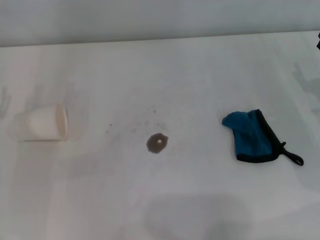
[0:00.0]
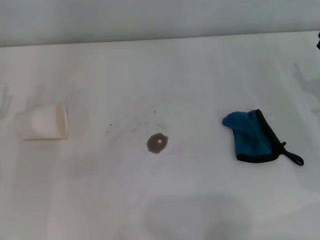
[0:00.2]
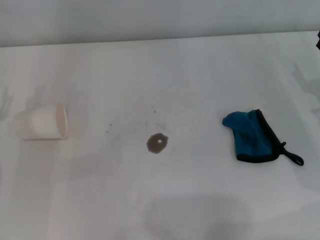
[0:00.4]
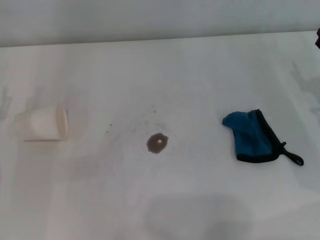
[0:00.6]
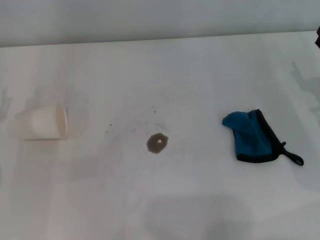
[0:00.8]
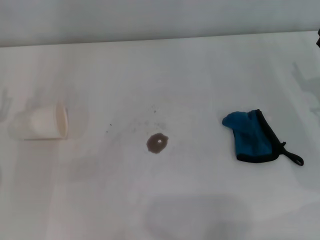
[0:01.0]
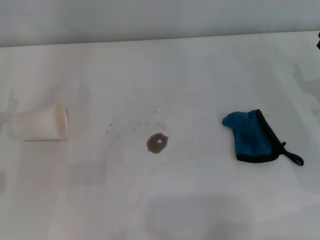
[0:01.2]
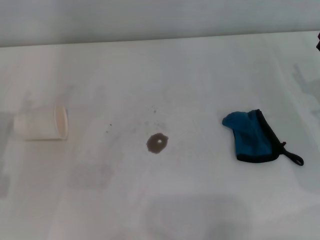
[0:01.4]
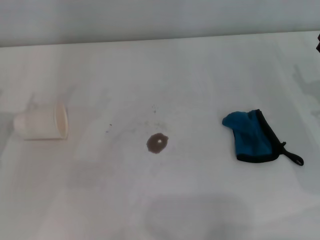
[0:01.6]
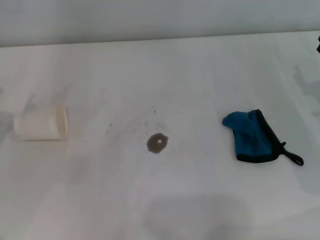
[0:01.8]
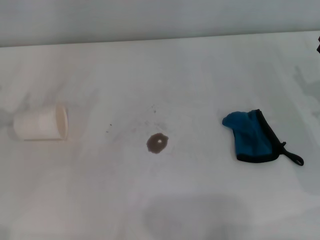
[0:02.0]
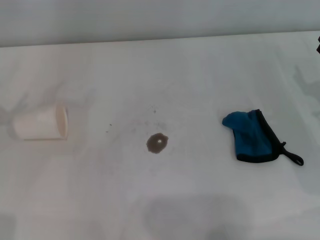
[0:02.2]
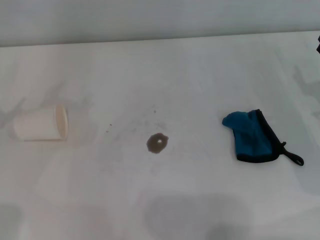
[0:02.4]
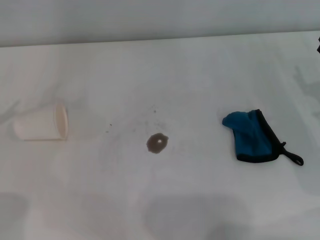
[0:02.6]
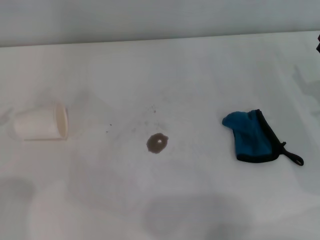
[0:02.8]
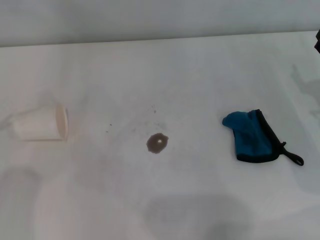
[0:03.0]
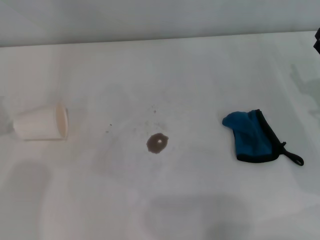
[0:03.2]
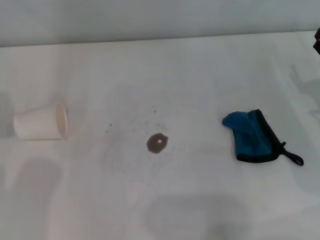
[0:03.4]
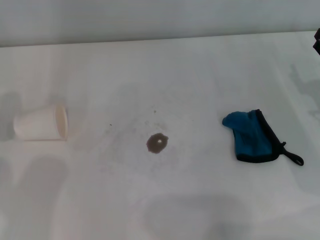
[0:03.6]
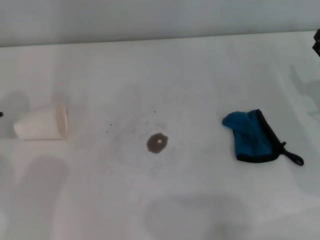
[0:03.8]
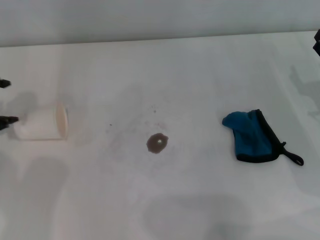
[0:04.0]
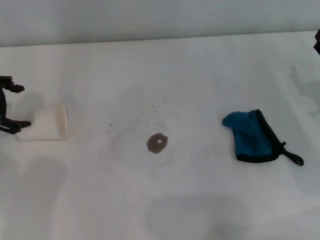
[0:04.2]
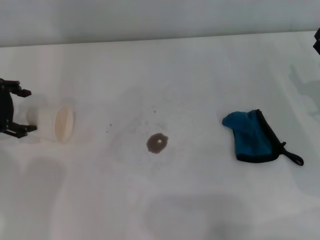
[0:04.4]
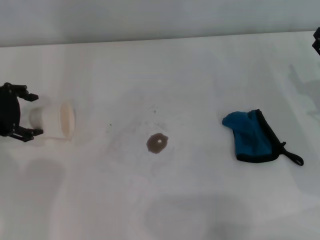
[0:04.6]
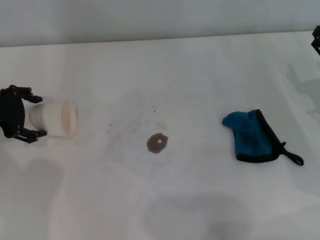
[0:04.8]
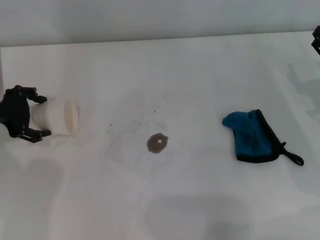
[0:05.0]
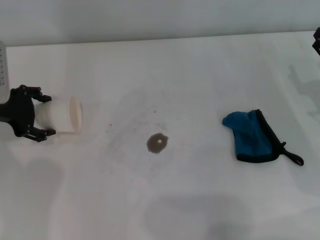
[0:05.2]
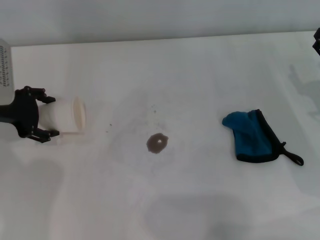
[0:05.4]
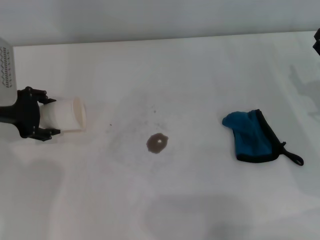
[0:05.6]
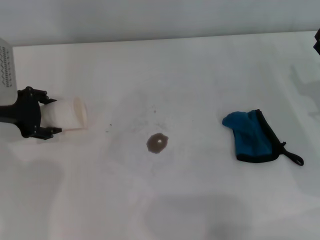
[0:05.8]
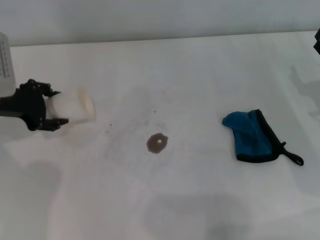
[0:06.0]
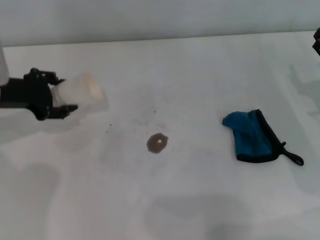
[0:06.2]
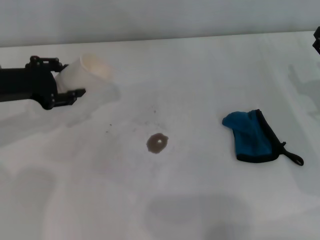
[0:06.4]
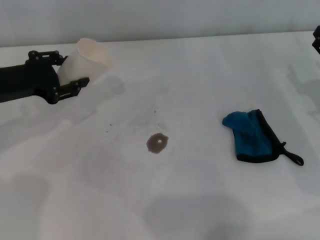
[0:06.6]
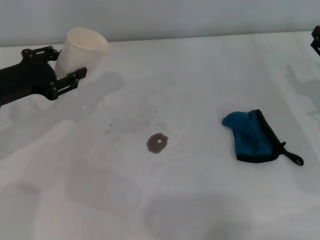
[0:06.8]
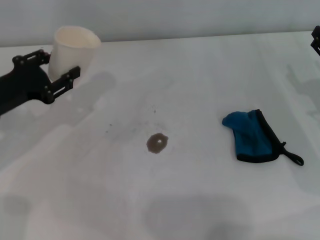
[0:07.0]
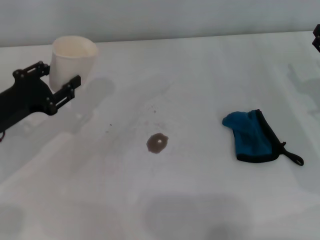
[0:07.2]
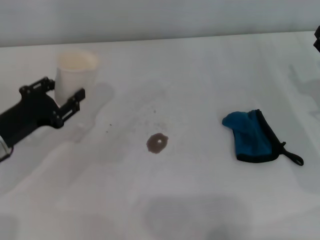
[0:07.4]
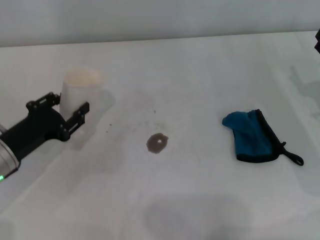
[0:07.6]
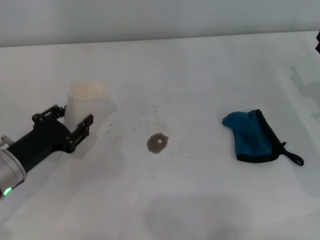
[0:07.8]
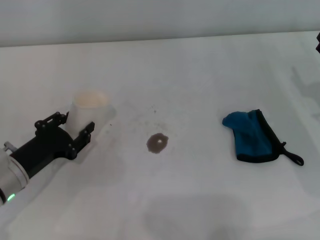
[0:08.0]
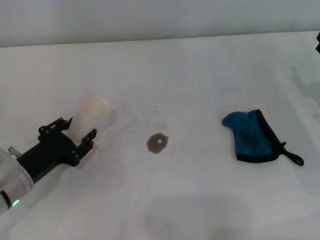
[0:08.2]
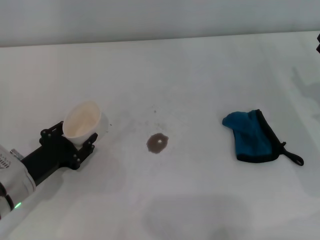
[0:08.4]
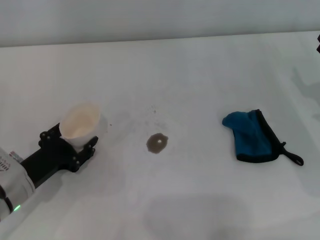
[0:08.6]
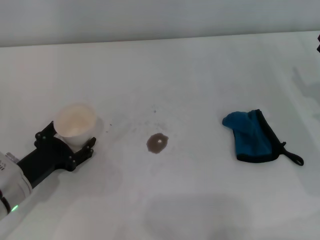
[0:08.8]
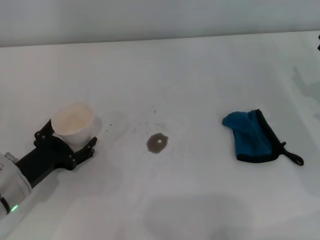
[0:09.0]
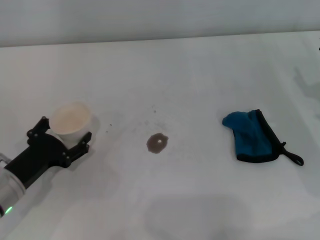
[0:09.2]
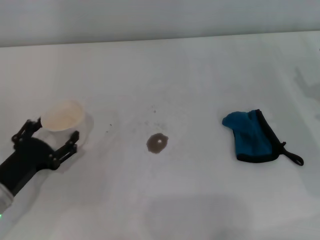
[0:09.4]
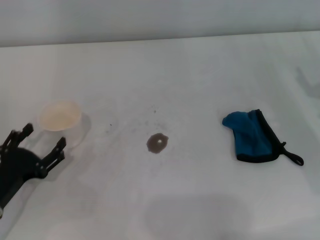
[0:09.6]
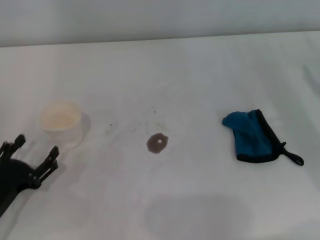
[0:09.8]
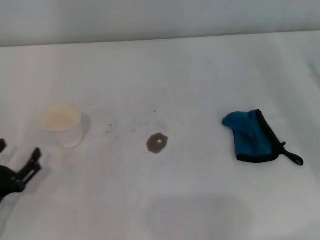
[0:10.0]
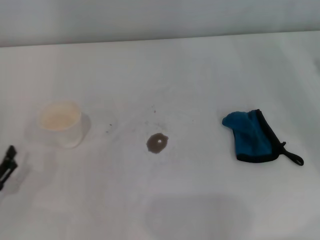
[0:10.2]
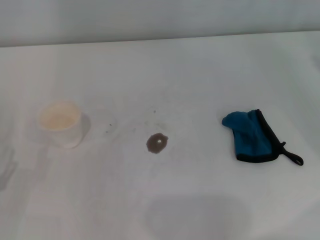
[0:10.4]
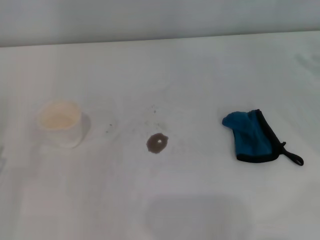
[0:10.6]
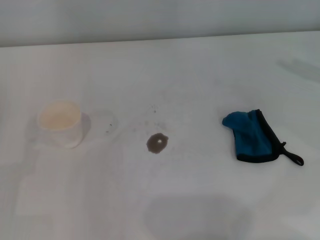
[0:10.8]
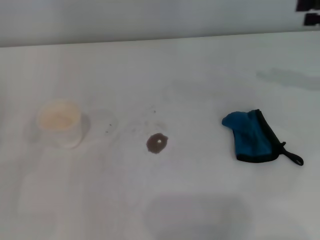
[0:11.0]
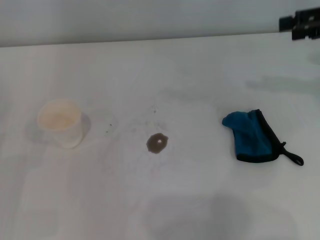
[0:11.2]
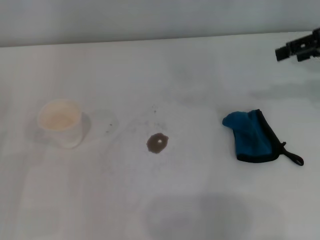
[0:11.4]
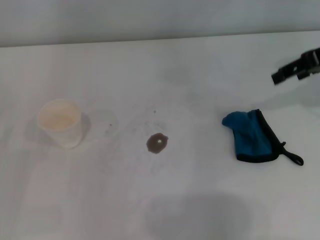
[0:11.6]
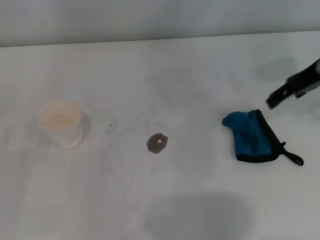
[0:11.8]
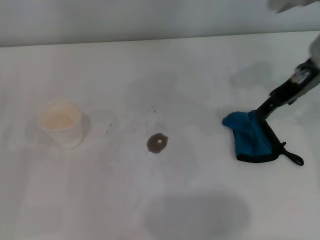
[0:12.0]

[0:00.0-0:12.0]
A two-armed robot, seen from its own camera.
Step, 0:00.0 to 0:05.6: Grasp the paper cup with the left gripper.
Step, 0:05.8 to 0:09.0: Stand the paper cup upright with the left gripper.
0:03.0 to 0:04.4: The left gripper heads to the right and downward, covering about 10 cm.
0:04.4 to 0:06.0: The left gripper closes up.
0:06.0 to 0:07.6: The left gripper heads backward and downward, covering approximately 15 cm, and closes up.
0:07.6 to 0:09.0: The left gripper ends up approximately 5 cm from where it was, and opens up.
0:09.0 to 0:10.4: The left gripper shifts roughly 10 cm backward and to the left.
0:10.4 to 0:12.0: The right gripper goes some 20 cm to the left and upward.

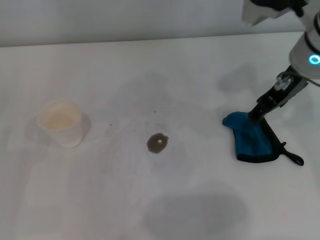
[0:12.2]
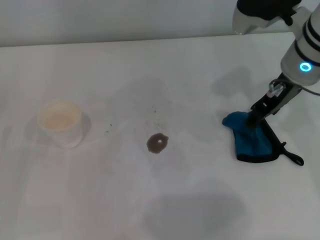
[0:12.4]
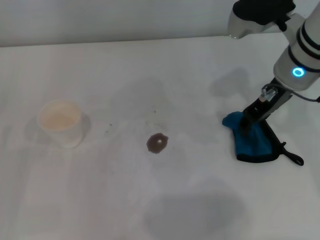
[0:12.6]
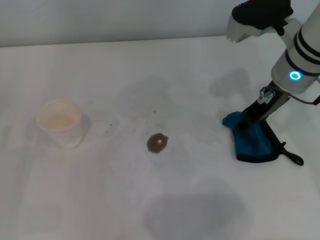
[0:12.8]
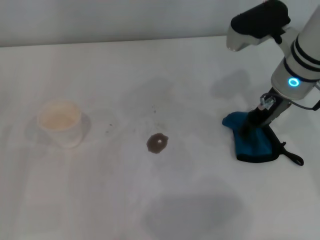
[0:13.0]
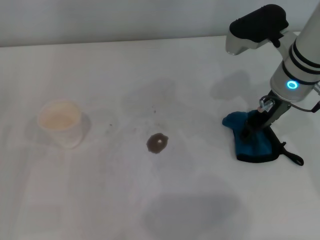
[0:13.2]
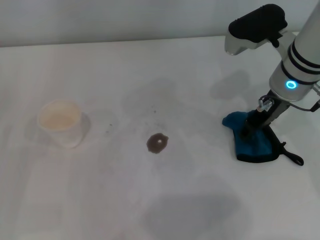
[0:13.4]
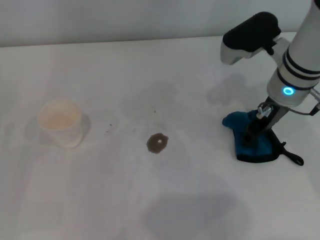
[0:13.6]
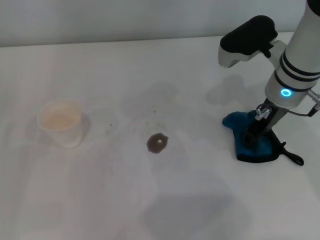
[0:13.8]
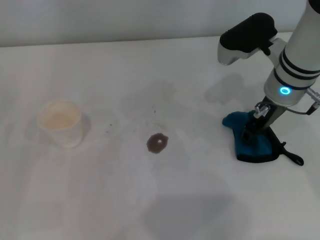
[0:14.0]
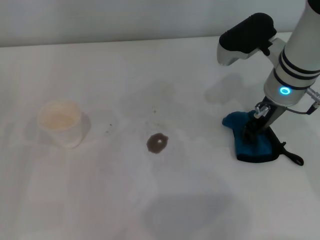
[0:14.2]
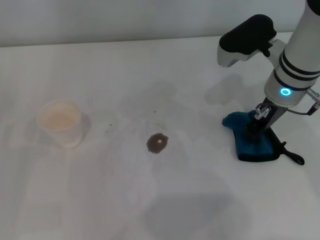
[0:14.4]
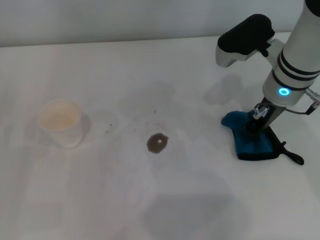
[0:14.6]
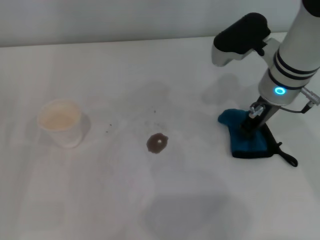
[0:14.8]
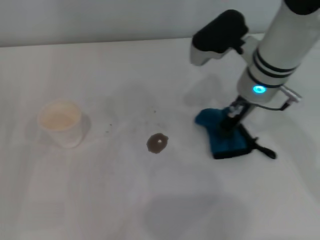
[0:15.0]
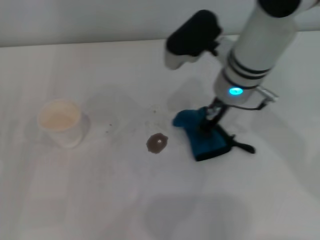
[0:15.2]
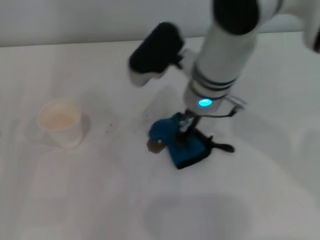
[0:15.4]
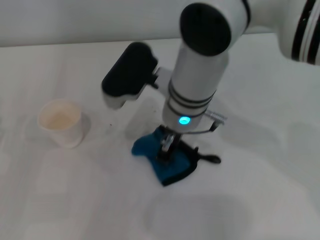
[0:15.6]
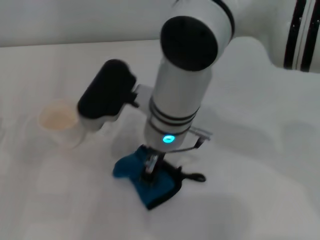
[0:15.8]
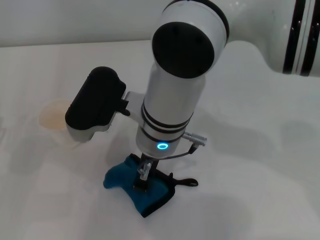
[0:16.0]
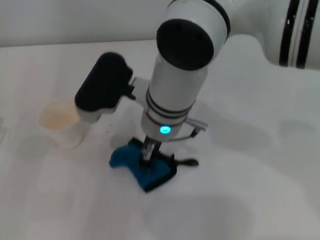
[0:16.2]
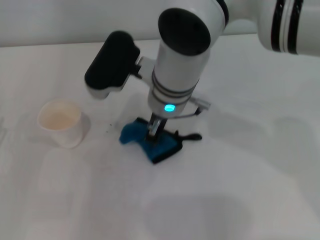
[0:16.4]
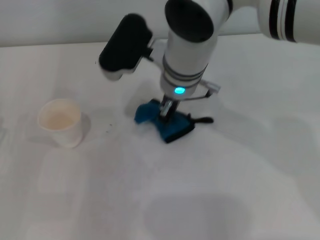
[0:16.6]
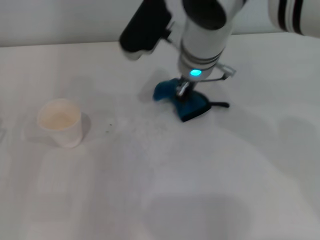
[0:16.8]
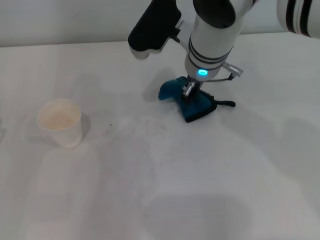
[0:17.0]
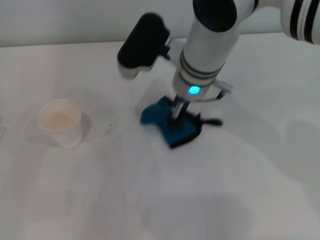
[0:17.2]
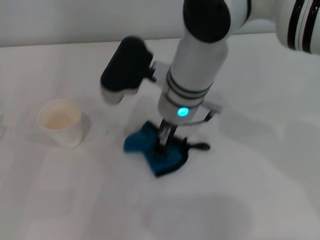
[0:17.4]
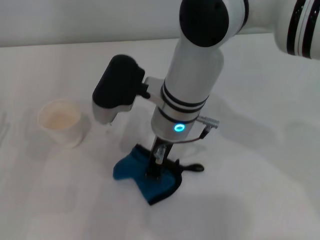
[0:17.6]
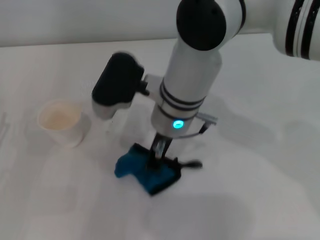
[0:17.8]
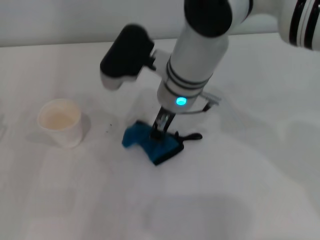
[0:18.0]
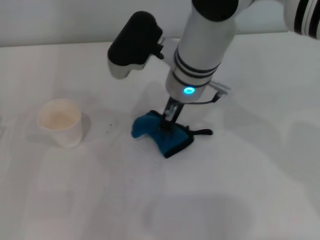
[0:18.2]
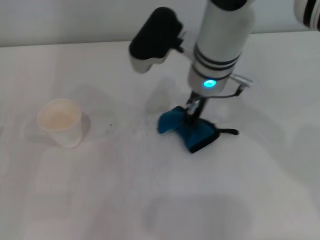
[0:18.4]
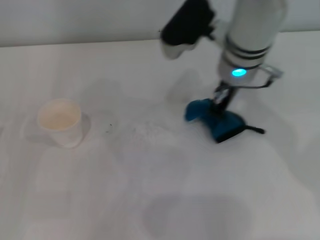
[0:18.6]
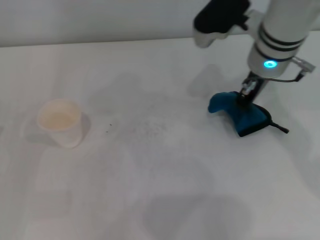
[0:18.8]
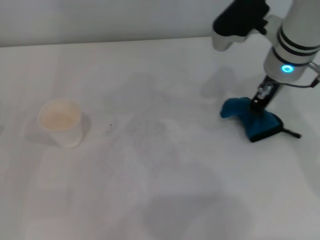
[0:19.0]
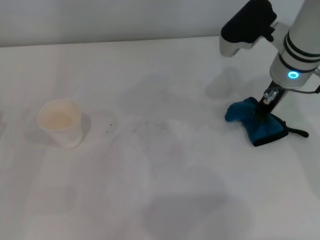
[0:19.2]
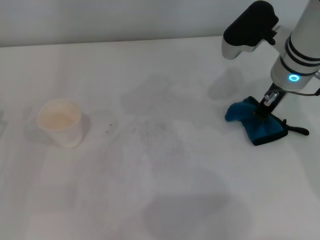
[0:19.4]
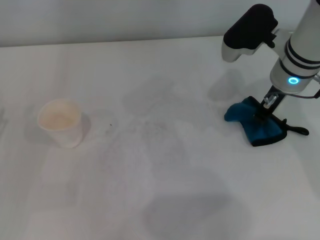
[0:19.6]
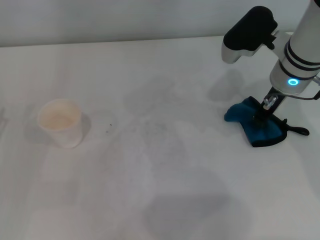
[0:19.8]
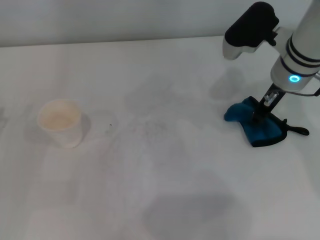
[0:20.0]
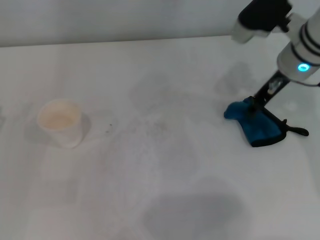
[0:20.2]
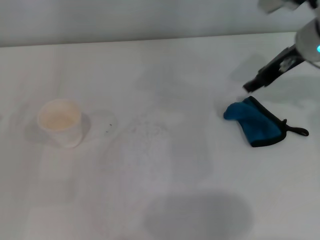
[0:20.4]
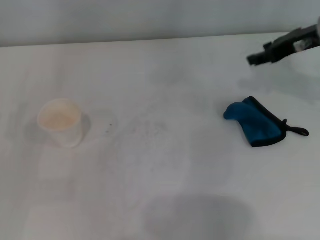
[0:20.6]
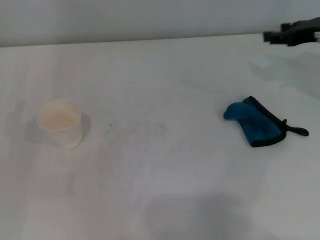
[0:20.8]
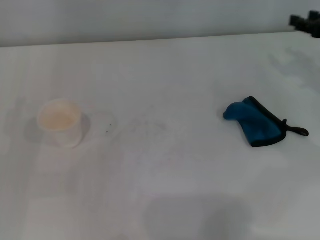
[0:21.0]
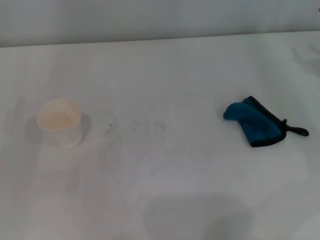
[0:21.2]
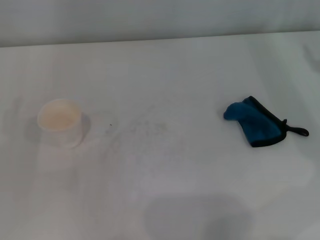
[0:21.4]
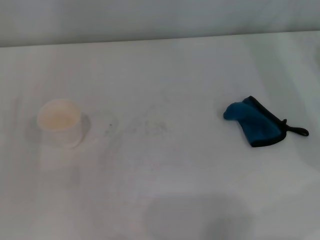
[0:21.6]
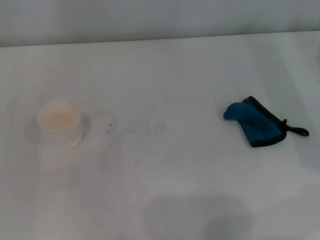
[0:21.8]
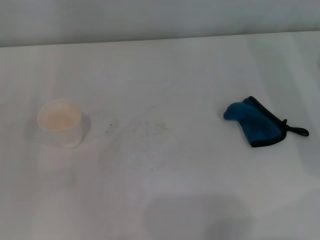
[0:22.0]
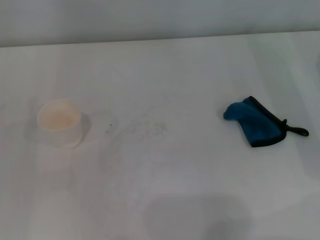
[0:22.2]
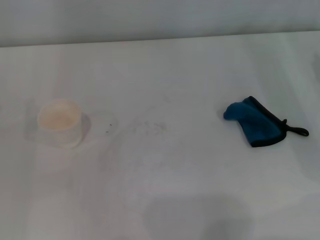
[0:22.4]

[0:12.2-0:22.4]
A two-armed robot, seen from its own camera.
Step, 0:12.2 to 0:14.6: Grasp the rag with the right gripper.
Step, 0:14.8 to 0:18.4: Wipe the stains off the table with the right gripper.
Step, 0:18.6 to 0:20.0: Place the rag on the table with the right gripper.
0:12.2 to 0:13.6: The right gripper goes some 5 cm downward.
0:13.6 to 0:15.2: The right gripper moves to the left, about 5 cm, and closes.
0:15.2 to 0:16.6: The right gripper goes about 10 cm to the left.
0:18.0 to 0:19.4: The right gripper moves to the right, approximately 15 cm.
0:19.4 to 0:21.0: The right gripper goes roughly 15 cm to the right, and opens up.
0:21.0 to 0:22.4: The right gripper goes approximately 10 cm downward and backward.
